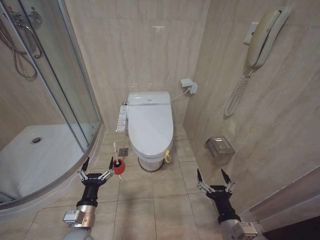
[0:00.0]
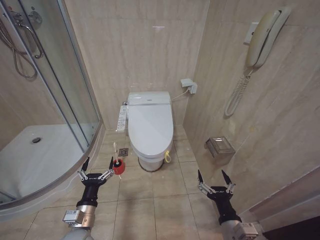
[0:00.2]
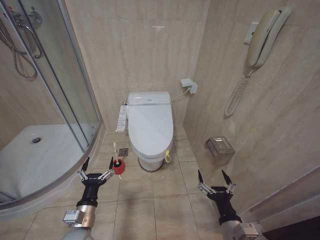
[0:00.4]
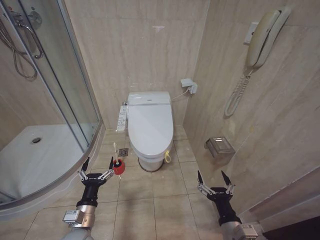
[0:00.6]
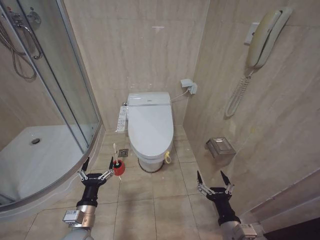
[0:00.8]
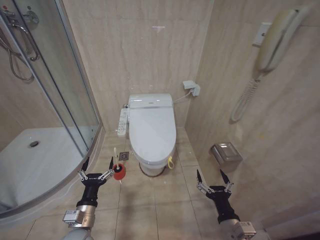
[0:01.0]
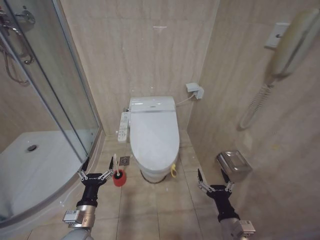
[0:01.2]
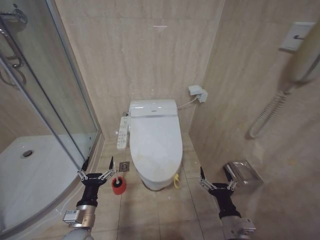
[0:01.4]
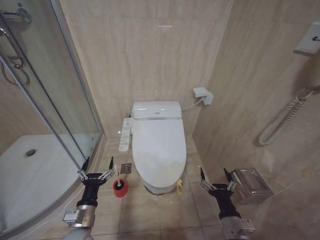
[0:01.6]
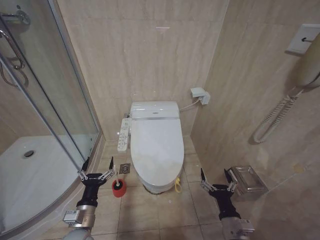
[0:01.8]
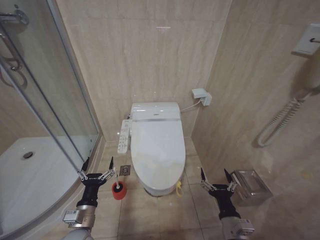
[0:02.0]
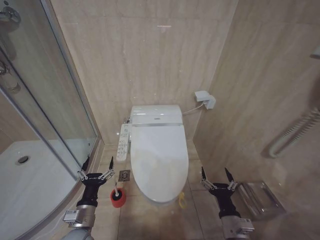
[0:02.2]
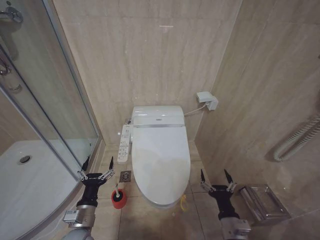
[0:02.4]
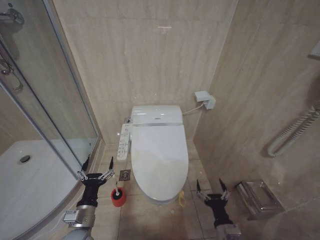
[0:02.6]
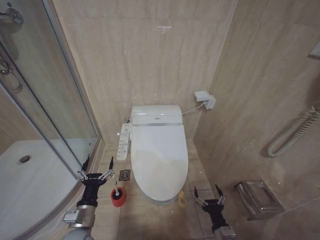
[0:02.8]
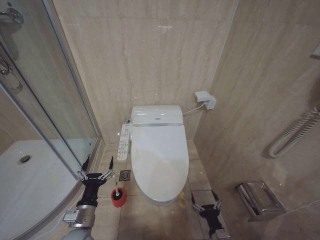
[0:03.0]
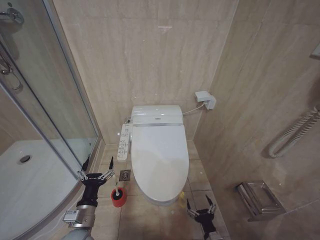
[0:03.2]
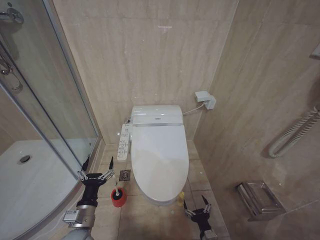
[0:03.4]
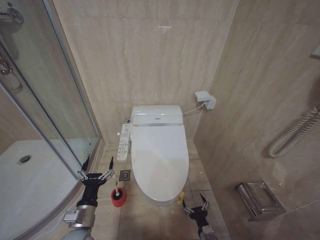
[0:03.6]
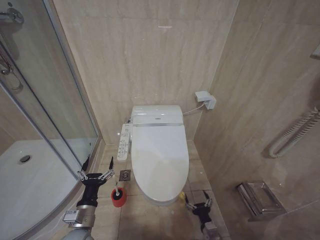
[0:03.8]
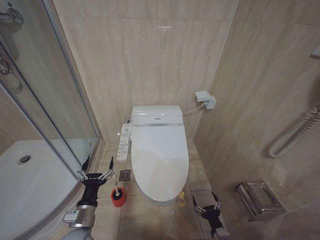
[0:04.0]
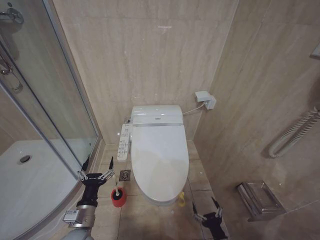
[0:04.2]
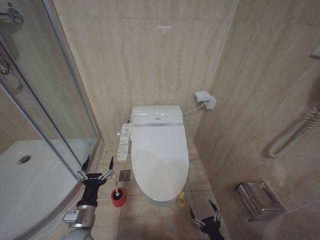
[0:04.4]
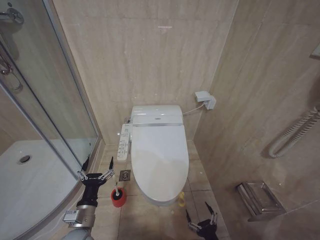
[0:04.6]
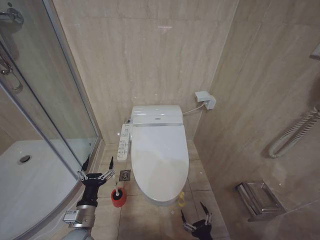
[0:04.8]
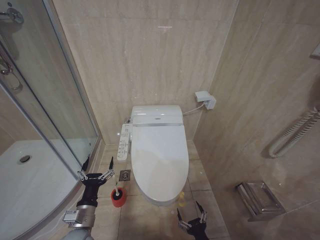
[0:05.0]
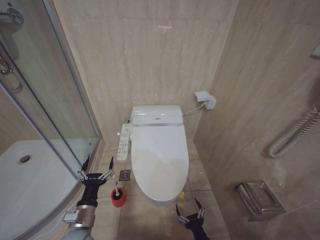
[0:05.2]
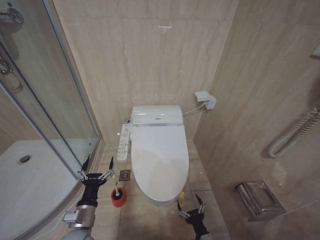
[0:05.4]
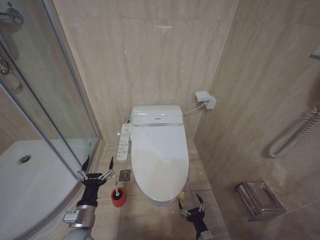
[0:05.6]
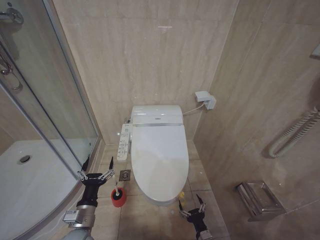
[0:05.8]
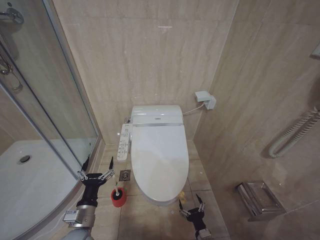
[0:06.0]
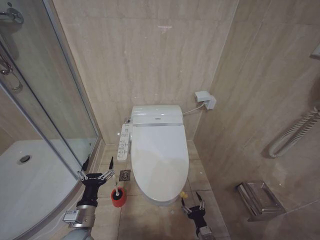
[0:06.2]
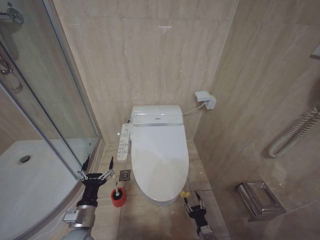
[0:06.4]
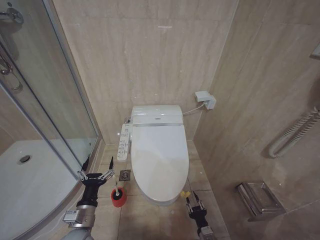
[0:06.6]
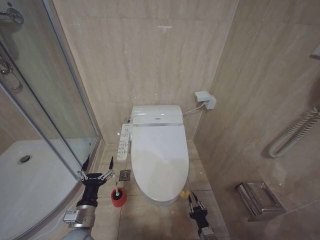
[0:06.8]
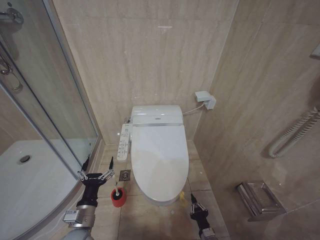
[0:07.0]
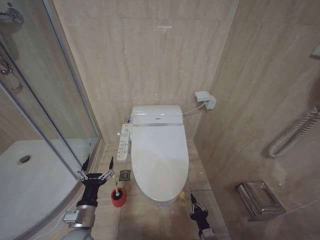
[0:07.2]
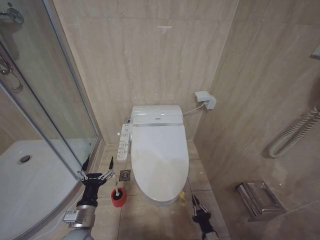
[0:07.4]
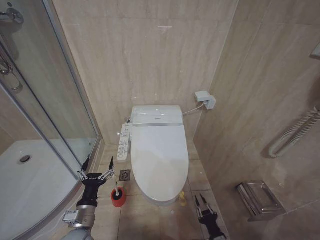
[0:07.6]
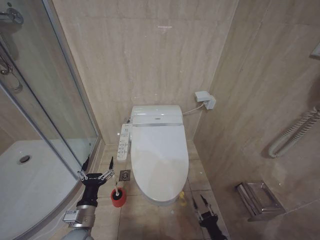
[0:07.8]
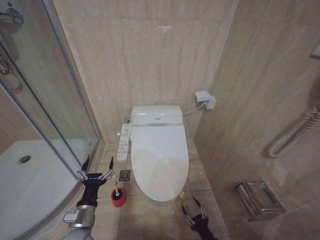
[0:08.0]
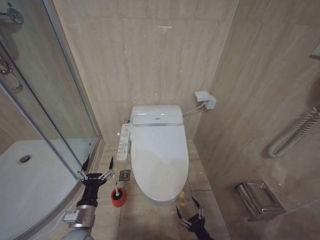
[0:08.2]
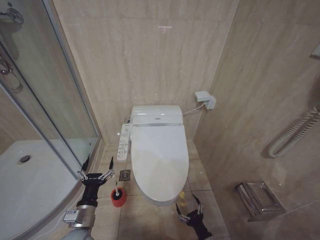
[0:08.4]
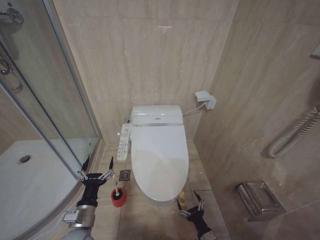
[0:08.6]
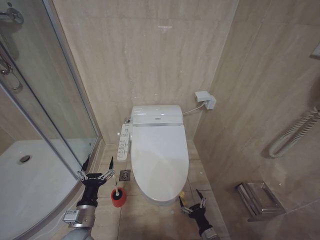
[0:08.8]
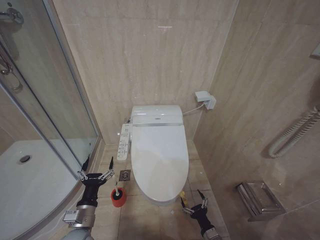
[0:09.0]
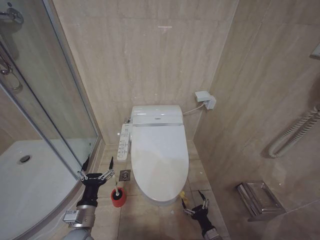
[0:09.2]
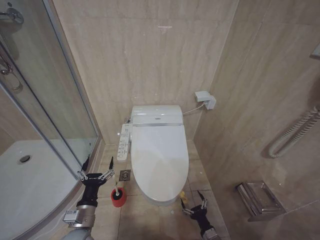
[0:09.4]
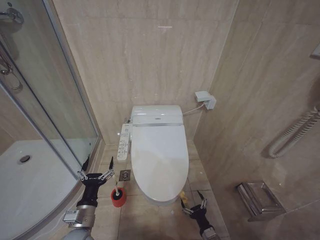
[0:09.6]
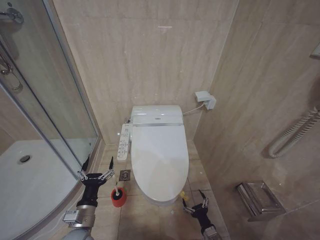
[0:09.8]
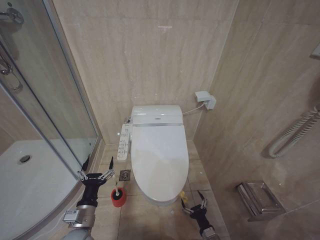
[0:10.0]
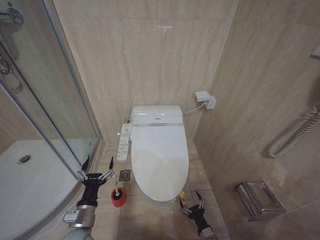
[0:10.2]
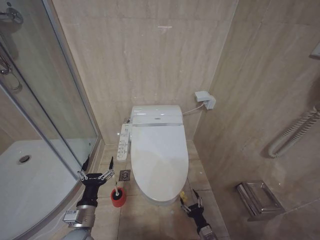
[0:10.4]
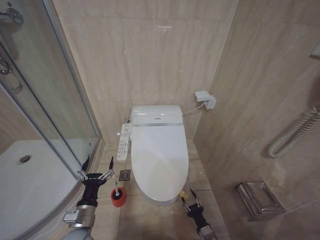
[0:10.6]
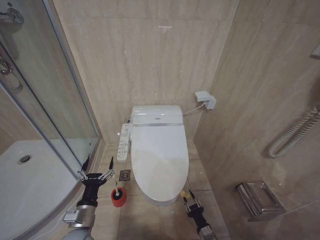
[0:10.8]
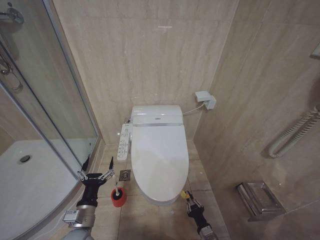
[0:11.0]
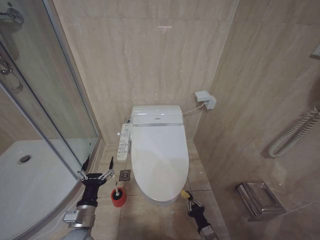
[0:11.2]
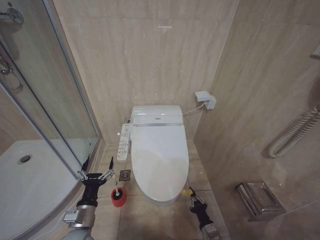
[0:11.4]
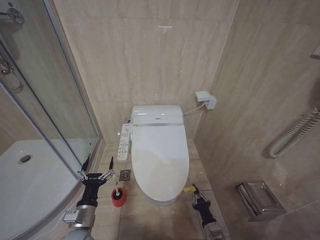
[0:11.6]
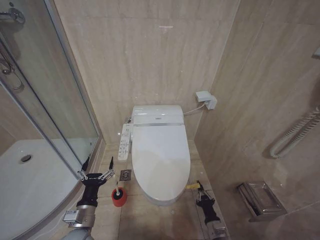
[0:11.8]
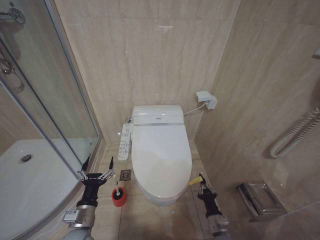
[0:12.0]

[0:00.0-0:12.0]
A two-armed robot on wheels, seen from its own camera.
Task of the whole recording: Open the toilet lid, clean the toilet bowl with a toilet brush, close the toilet lid, and flush.
0:01.6 to 0:03.0: The right gripper goes approximately 10 cm downward.
0:04.4 to 0:06.0: The right gripper moves some 10 cm.
0:06.0 to 0:07.6: The right gripper closes its fingers.
0:07.6 to 0:09.0: The right gripper opens its fingers.
0:10.4 to 0:12.0: The right gripper goes approximately 5 cm upward, and closes.

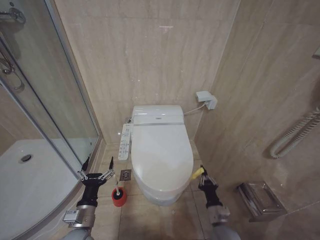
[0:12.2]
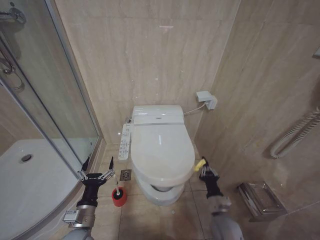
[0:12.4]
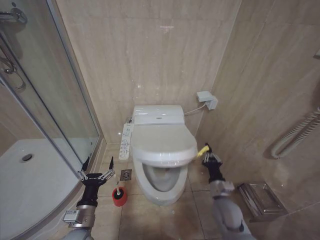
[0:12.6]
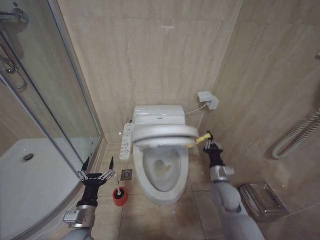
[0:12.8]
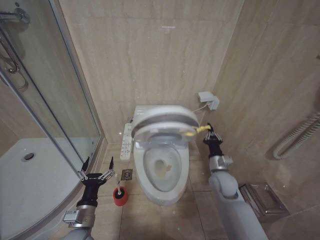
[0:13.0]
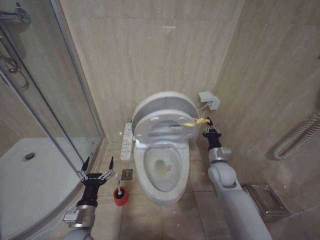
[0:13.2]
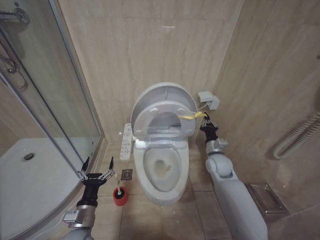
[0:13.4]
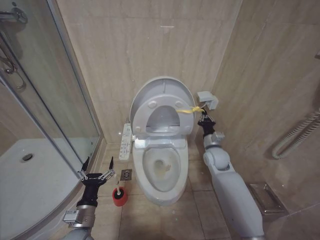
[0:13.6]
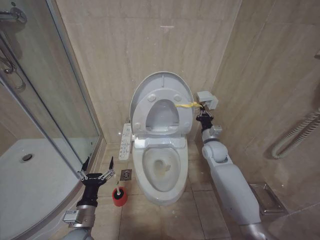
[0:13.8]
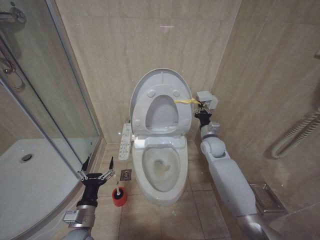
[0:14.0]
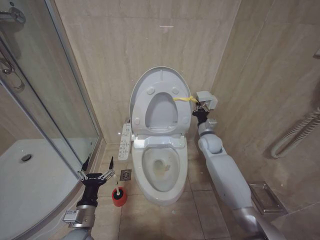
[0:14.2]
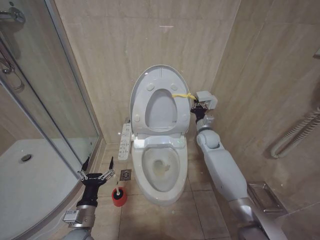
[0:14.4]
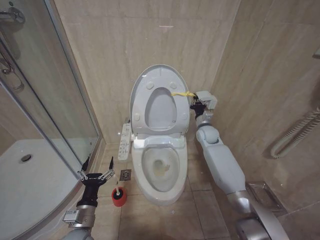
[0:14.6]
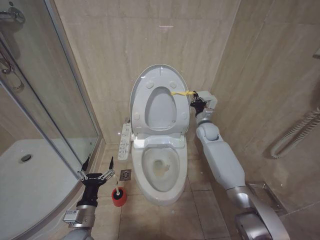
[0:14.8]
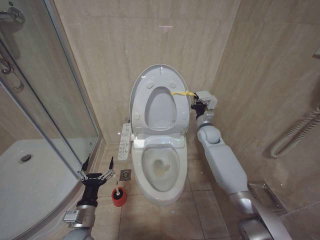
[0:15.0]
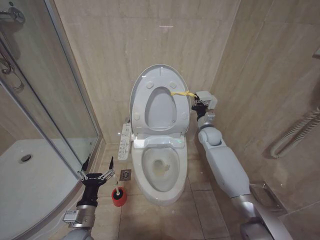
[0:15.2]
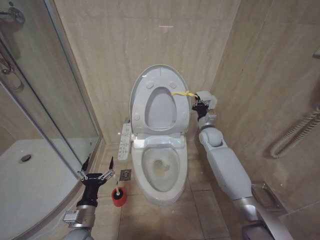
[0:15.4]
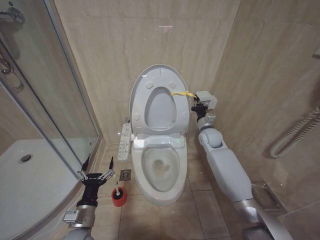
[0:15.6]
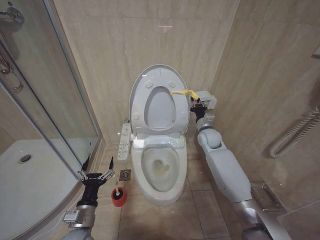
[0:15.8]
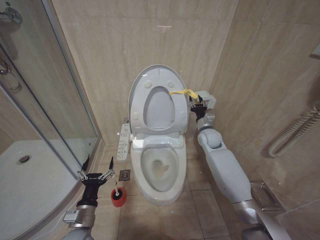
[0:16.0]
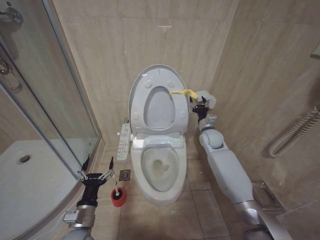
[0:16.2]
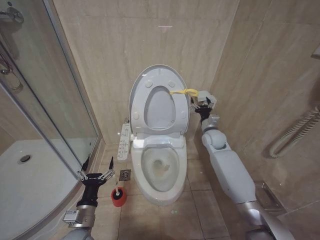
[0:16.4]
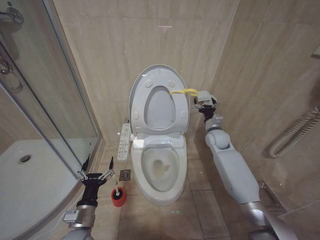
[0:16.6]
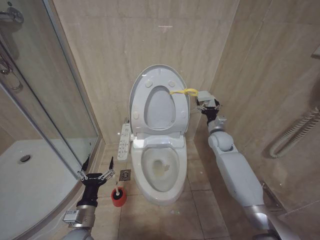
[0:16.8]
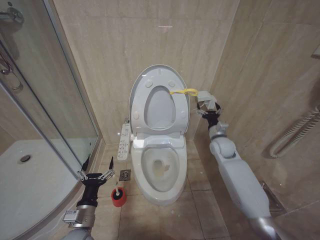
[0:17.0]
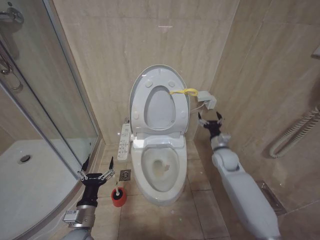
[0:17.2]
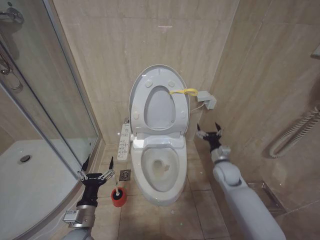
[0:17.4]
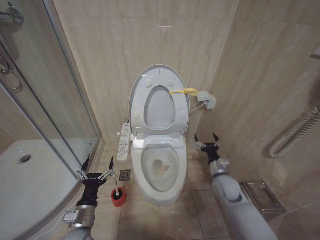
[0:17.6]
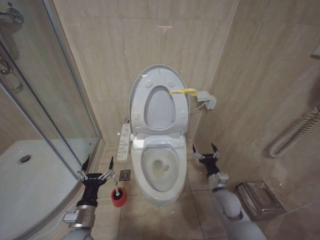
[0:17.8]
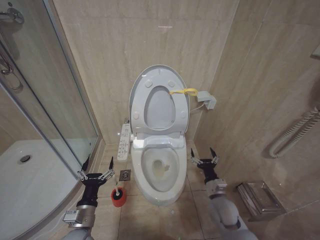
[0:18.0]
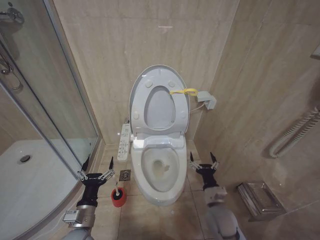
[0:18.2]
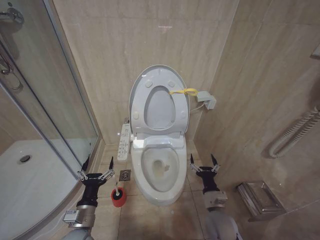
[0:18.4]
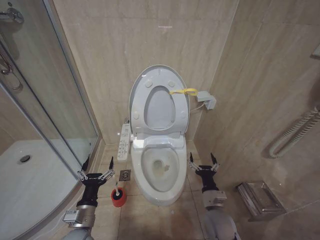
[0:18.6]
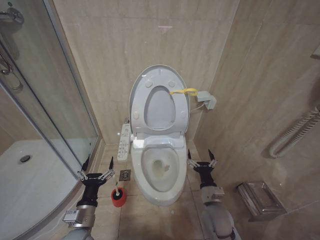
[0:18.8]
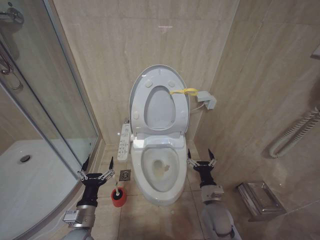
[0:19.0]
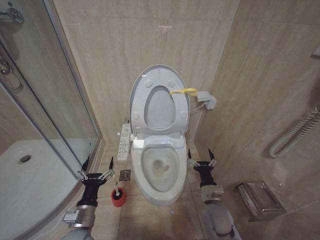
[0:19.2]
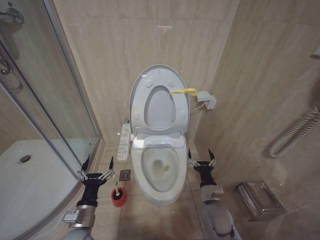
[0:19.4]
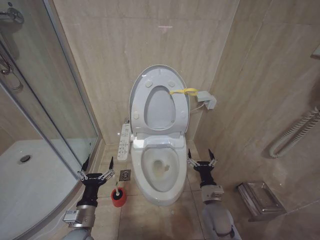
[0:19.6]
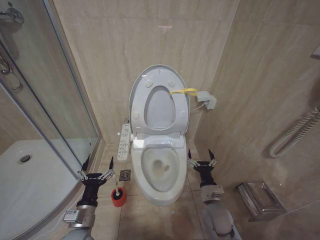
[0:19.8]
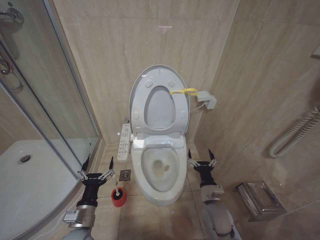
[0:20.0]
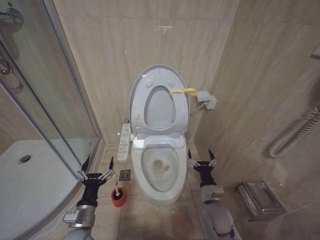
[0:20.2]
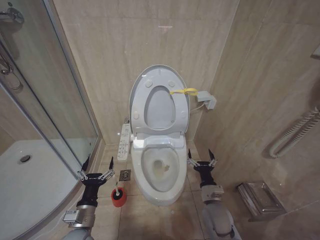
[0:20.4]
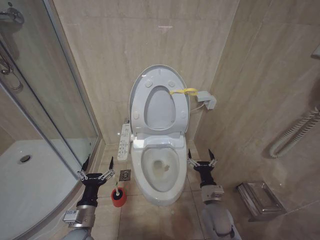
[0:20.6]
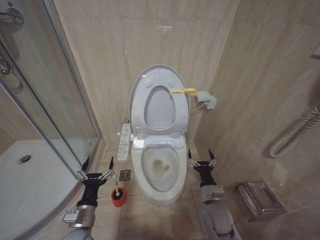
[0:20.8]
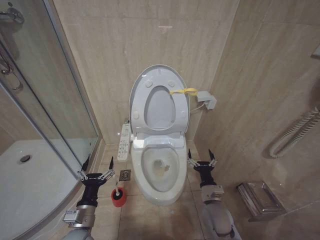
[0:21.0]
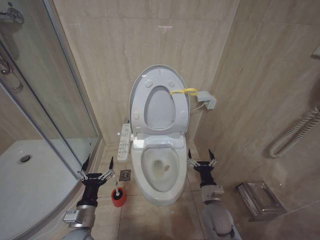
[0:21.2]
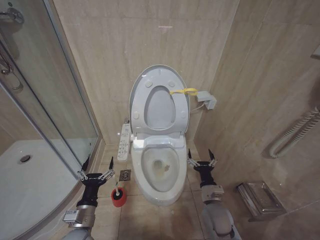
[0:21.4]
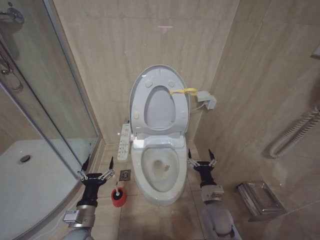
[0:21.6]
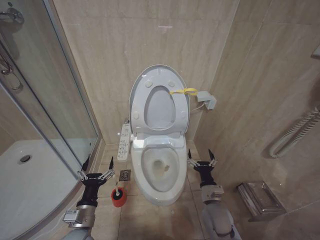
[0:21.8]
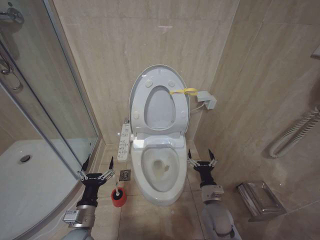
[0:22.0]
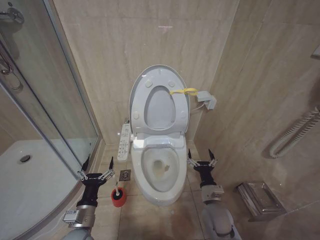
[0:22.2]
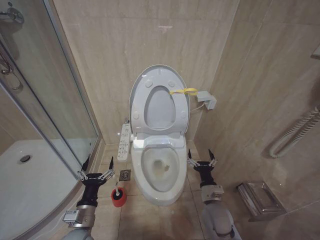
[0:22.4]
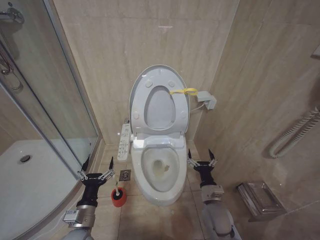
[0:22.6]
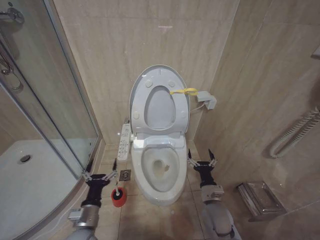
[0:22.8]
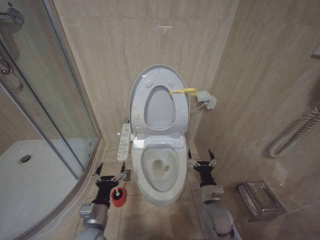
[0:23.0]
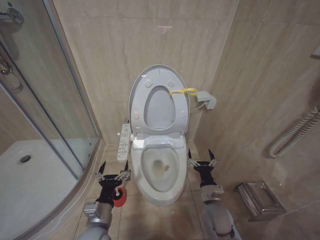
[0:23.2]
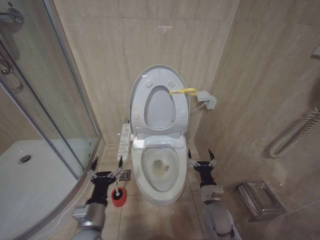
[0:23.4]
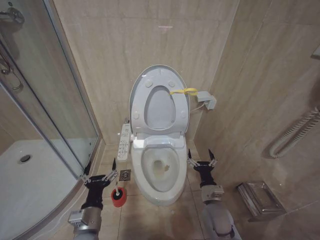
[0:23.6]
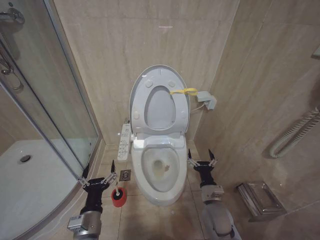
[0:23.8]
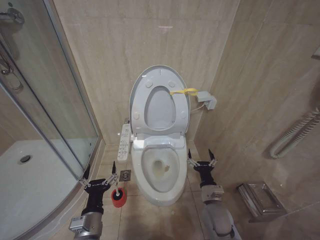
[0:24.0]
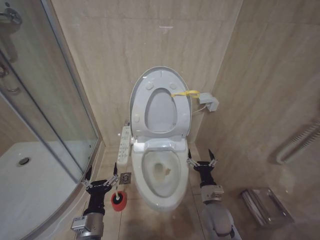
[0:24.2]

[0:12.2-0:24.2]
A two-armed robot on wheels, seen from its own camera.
Task of the whole recording: Open the toilet lid, clean the toilet bowl with a toilet brush, close the toilet lid, and flush.
0:12.2 to 0:13.8: The right gripper shifts some 30 cm forward and upward.
0:13.8 to 0:15.2: The right gripper goes some 5 cm forward.
0:15.2 to 0:16.6: The right gripper opens its fingers.
0:16.6 to 0:18.2: The right gripper moves backward and downward, about 30 cm.
0:19.8 to 0:22.6: The two grippers keep their place.
0:22.6 to 0:24.2: The left gripper ends up approximately 5 cm from where it was.
